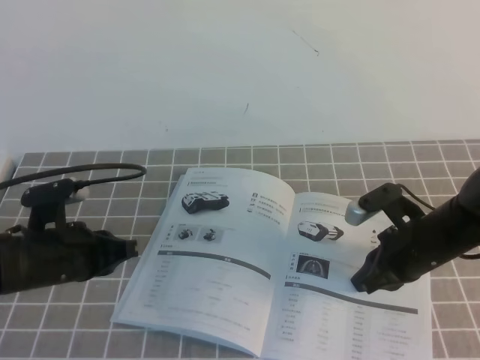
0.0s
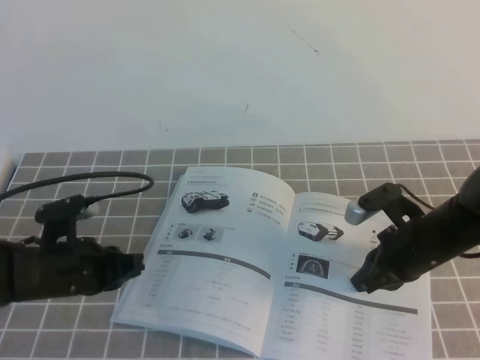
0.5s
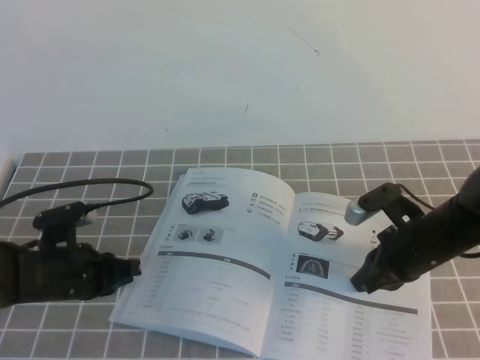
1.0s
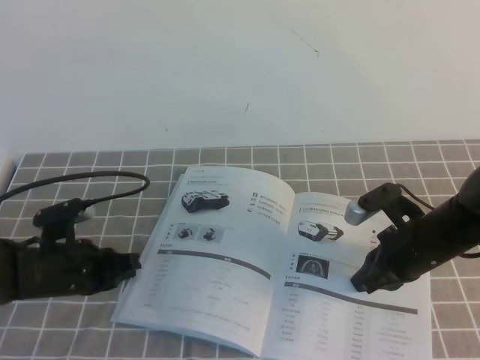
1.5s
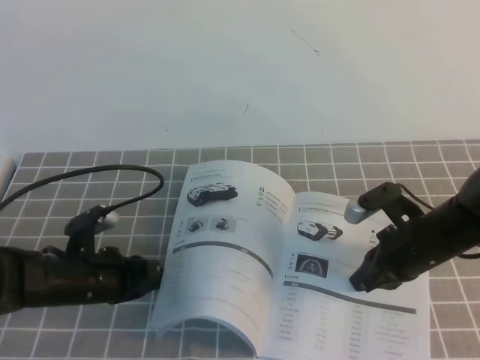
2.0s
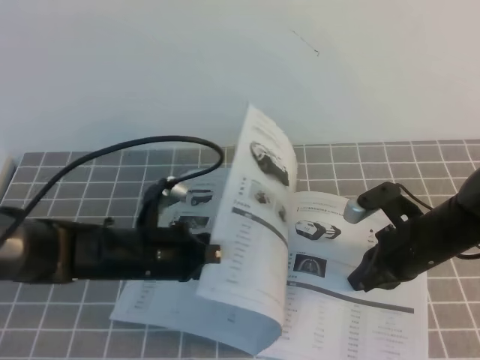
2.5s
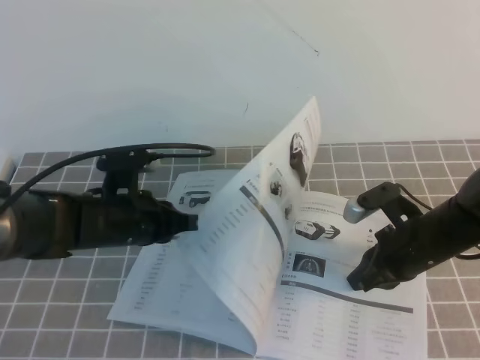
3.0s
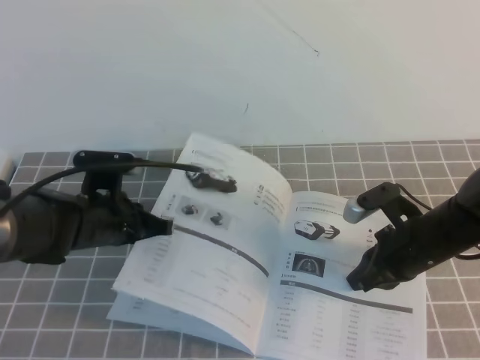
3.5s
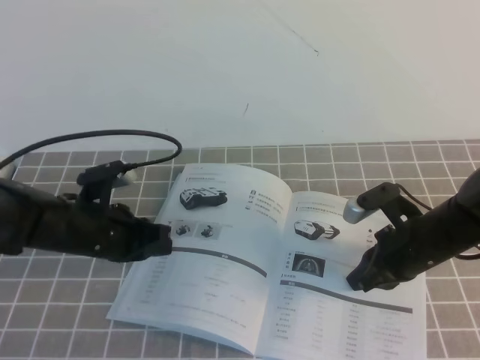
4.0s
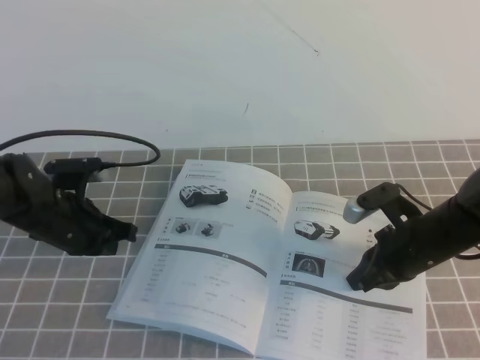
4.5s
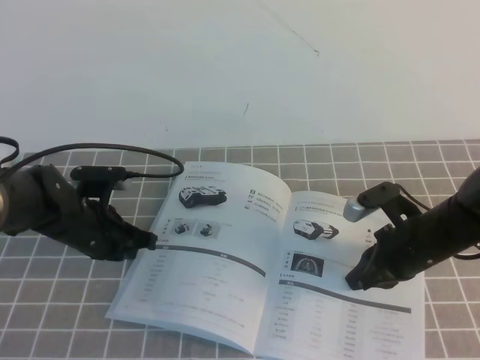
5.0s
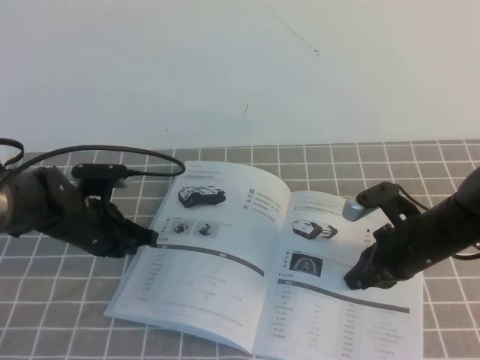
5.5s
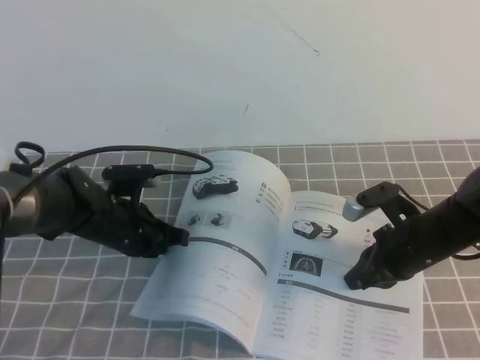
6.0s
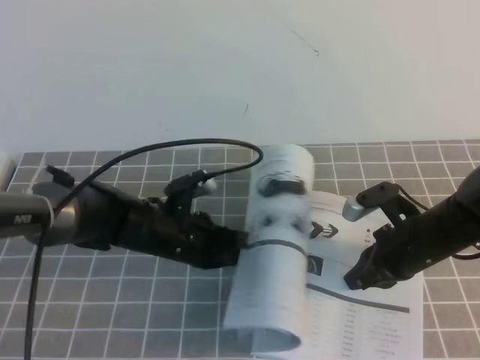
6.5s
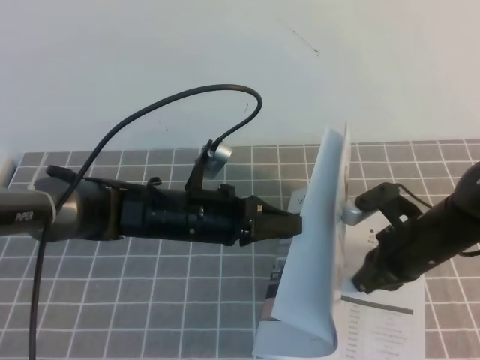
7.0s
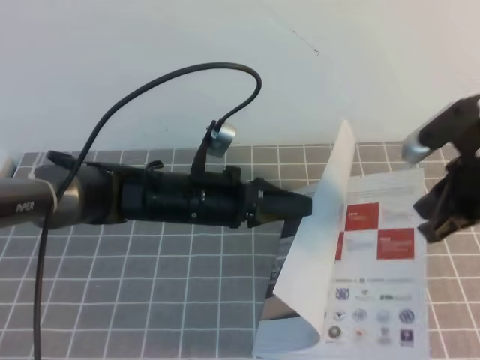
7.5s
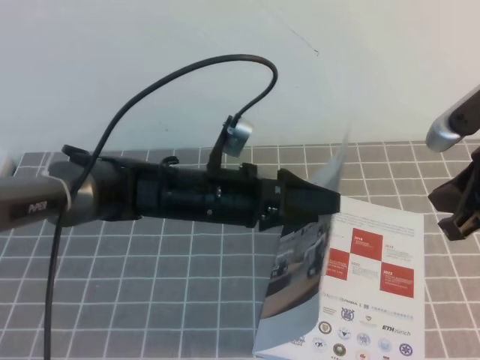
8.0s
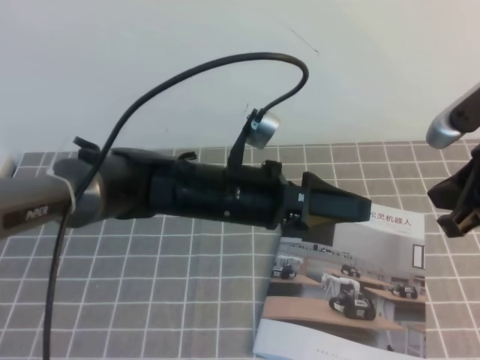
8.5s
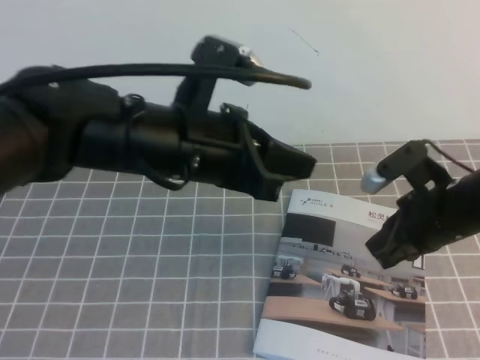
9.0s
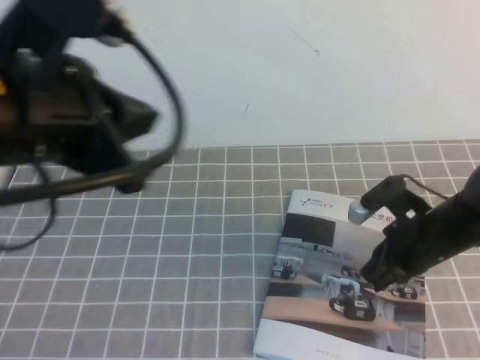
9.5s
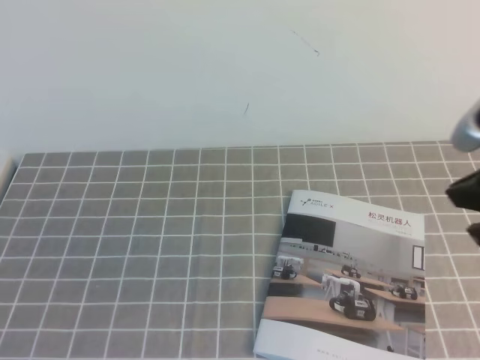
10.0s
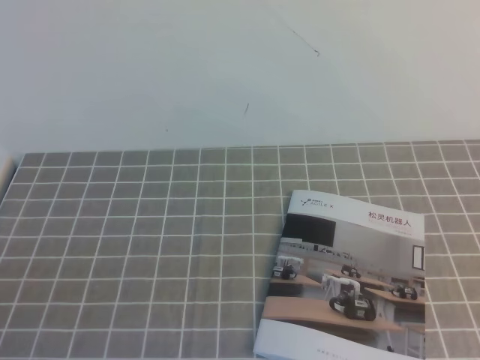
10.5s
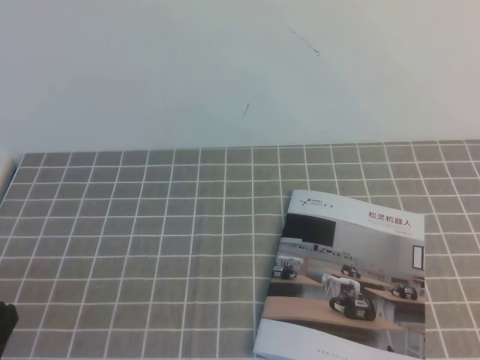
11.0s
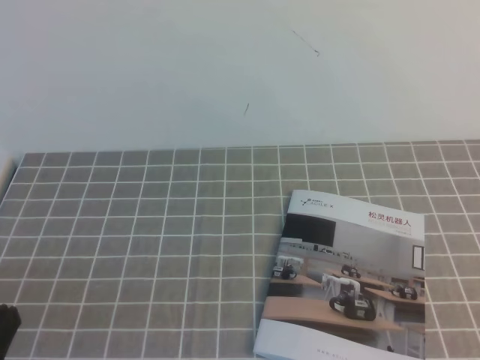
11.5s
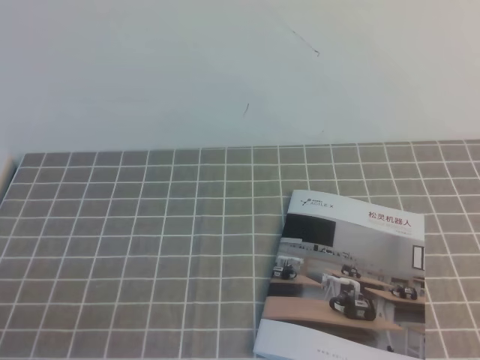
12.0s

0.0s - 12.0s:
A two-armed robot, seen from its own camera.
Task of the whole recording: on the grey tablecloth, hold the book with one hand and close it with the other.
0.0s - 2.0s: The left gripper moves downward, some 5 cm.
2.0s - 4.0s: The left gripper shifts some 5 cm upward.
4.0s - 6.0s: There are only small adjustments of the grippers.
6.0s - 8.0s: The right gripper is displaced upward by approximately 20 cm, while the left gripper moves to the right and upward, approximately 15 cm, and opens its fingers.
8.0s - 10.0s: The left gripper heads backward, to the left and upward, covering approximately 35 cm, and closes. The right gripper reaches approximately 15 cm downward, then returns.
10.0s - 12.0s: The left gripper moves downward, approximately 15 cm. The right gripper heads backward, covering roughly 20 cm.
